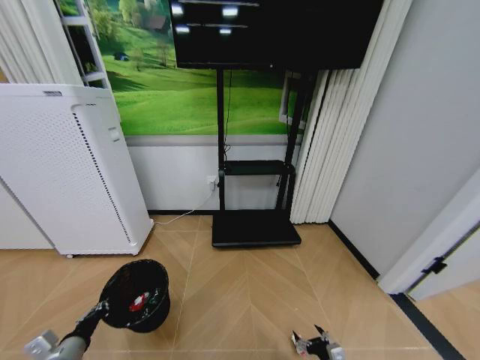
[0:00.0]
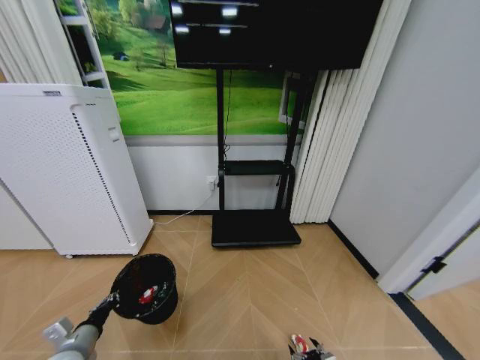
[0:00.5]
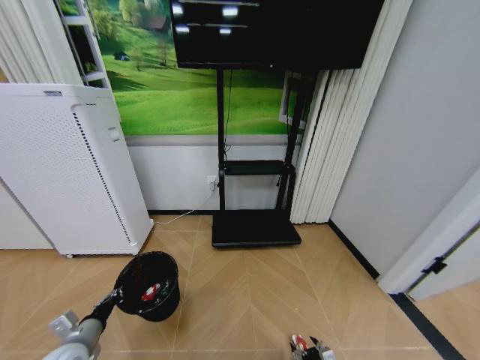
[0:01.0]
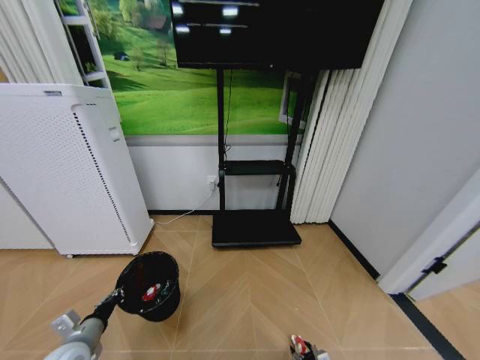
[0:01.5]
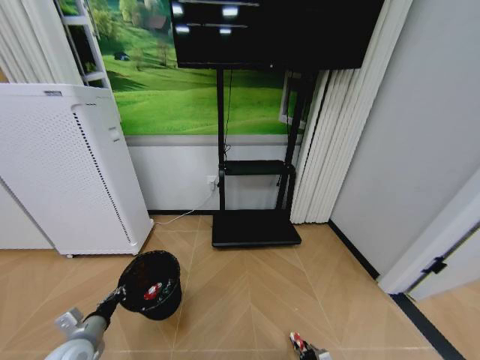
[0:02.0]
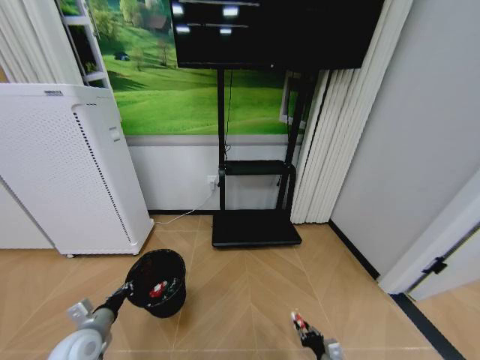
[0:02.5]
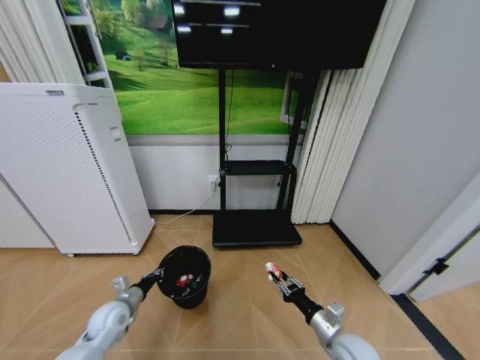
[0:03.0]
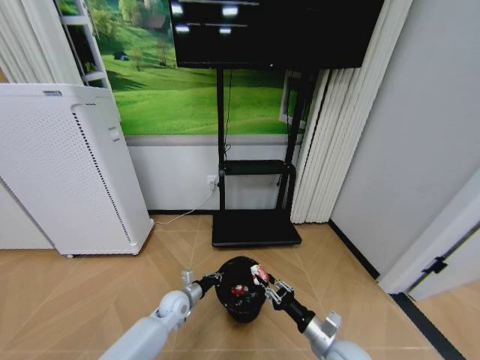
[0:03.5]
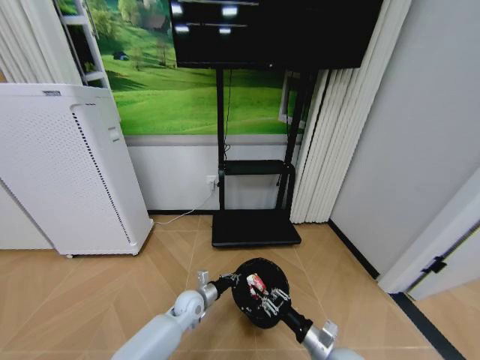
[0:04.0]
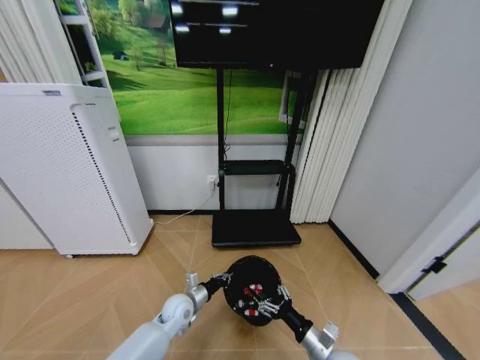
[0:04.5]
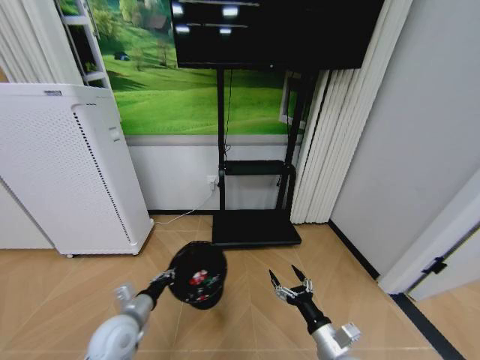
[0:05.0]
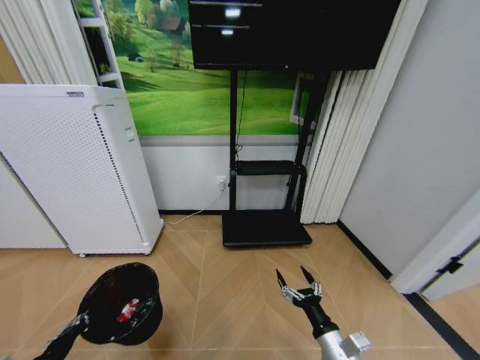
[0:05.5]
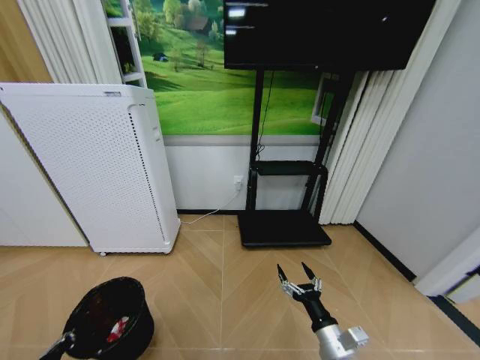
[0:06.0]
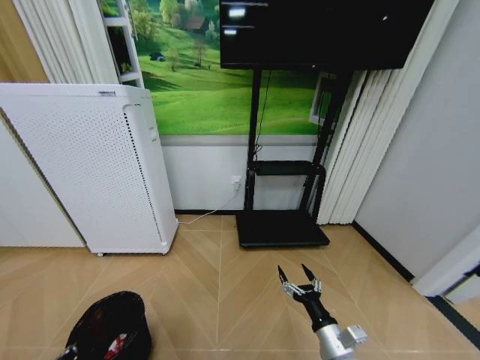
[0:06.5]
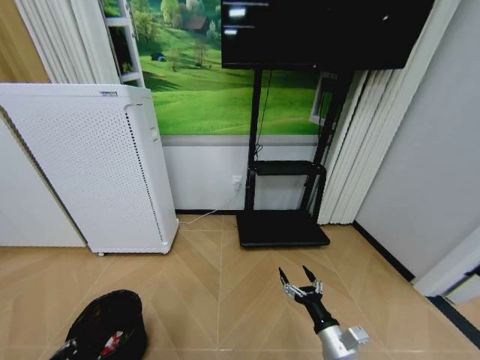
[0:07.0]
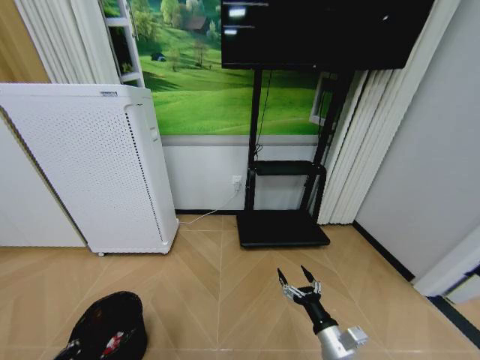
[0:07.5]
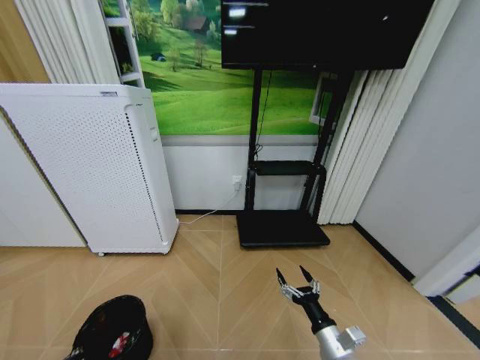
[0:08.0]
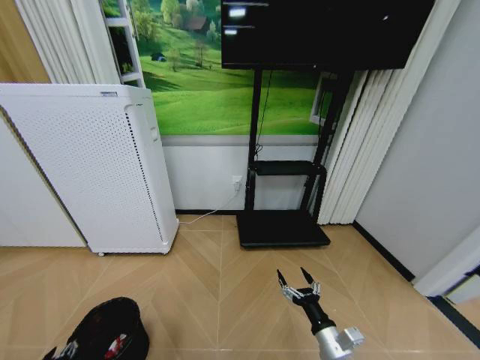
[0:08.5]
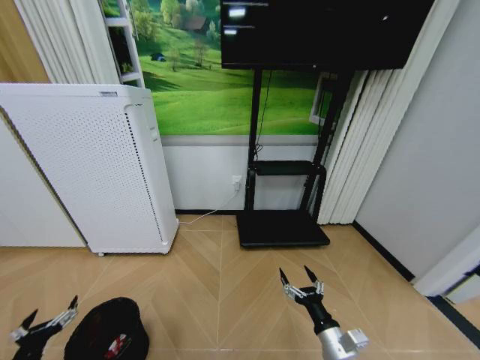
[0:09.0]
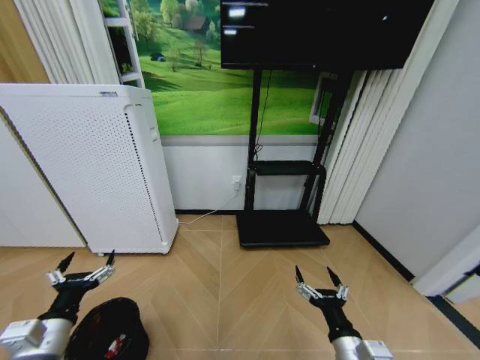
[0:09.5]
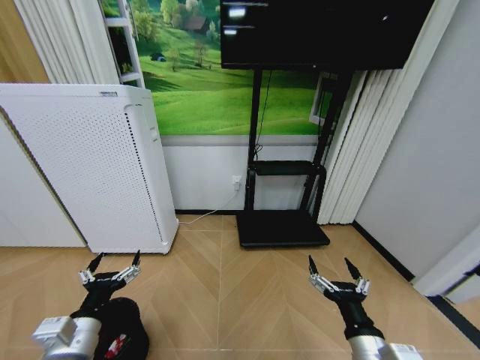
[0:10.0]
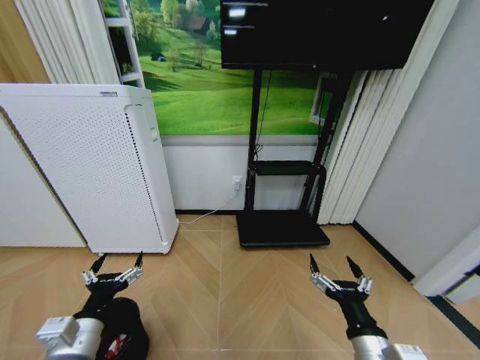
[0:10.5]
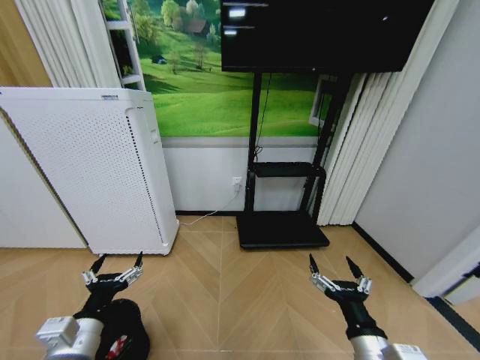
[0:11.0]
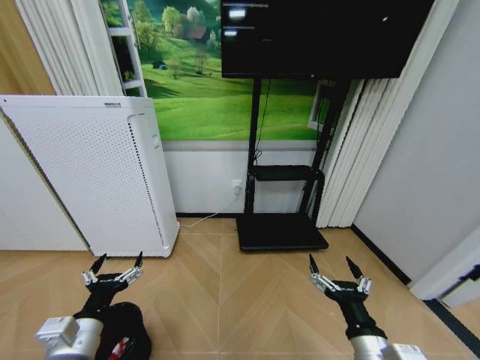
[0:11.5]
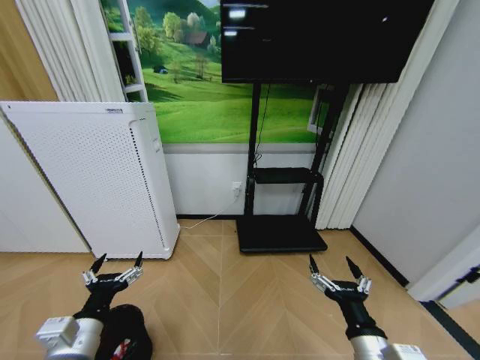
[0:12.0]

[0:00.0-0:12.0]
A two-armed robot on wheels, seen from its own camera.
Task of the whole recording: Pick up the trash bin and place the garbage on the floor into it.
0:00.0 to 0:02.0: The right gripper moves about 5 cm, and closes its fingers. The left gripper shifts by roughly 5 cm.
0:02.0 to 0:04.0: The left gripper goes about 30 cm to the right and forward. The right gripper shifts some 20 cm upward.
0:04.0 to 0:06.0: The left gripper goes some 40 cm to the left and backward; the right gripper shifts by approximately 5 cm, and opens.
0:06.0 to 0:08.0: The left gripper shifts roughly 10 cm downward.
0:08.0 to 0:10.0: The left gripper moves upward and to the right, some 25 cm, and opens, while the right gripper travels upward by about 10 cm.
0:10.0 to 0:12.0: The two grippers keep their place.

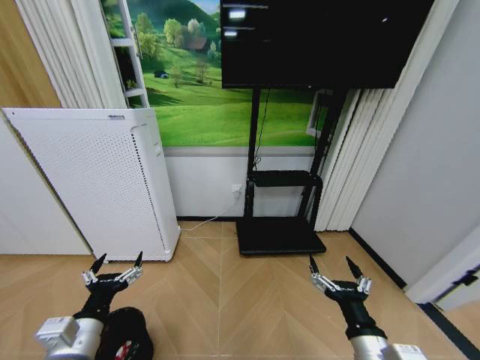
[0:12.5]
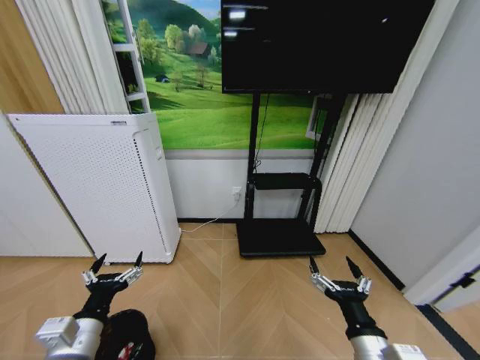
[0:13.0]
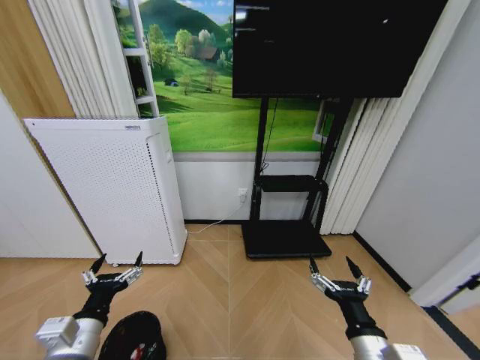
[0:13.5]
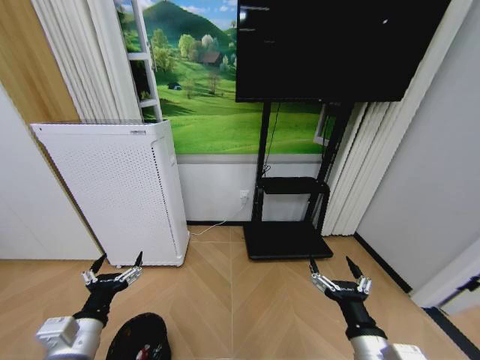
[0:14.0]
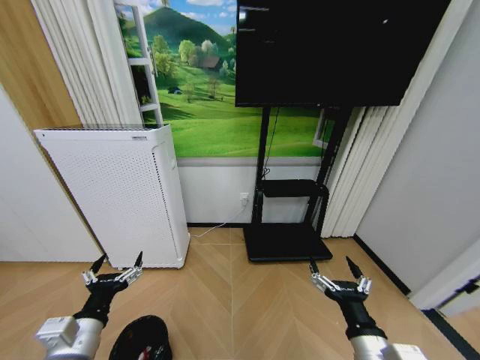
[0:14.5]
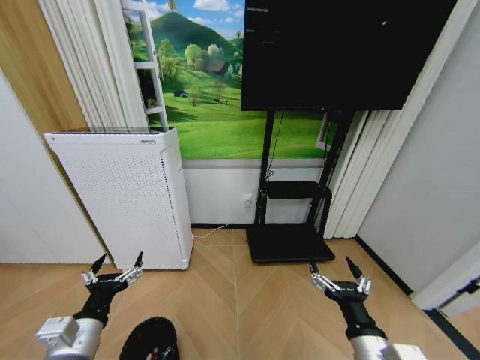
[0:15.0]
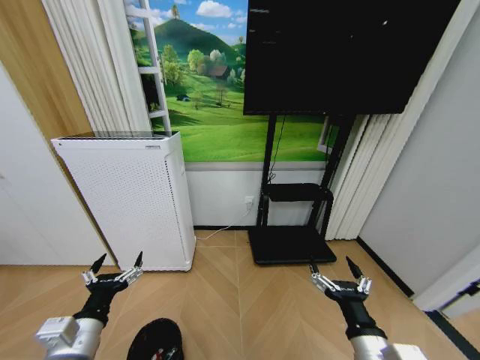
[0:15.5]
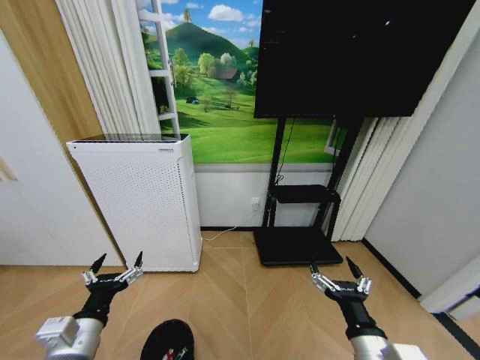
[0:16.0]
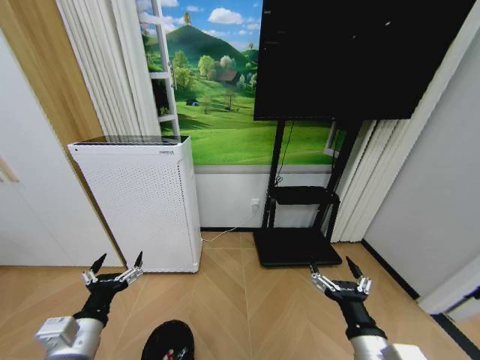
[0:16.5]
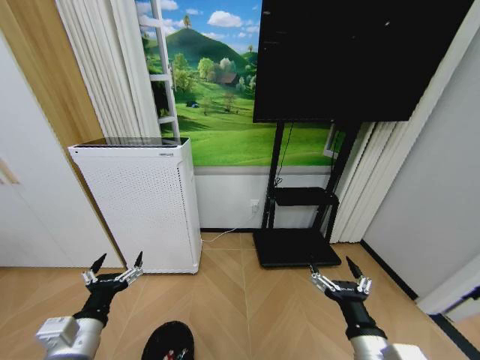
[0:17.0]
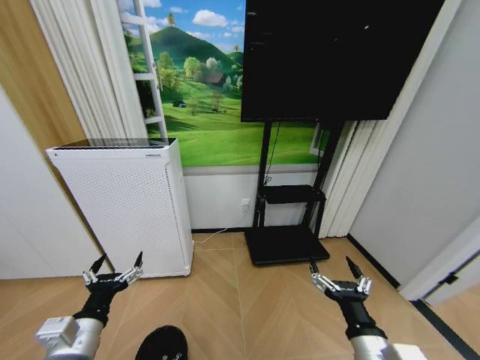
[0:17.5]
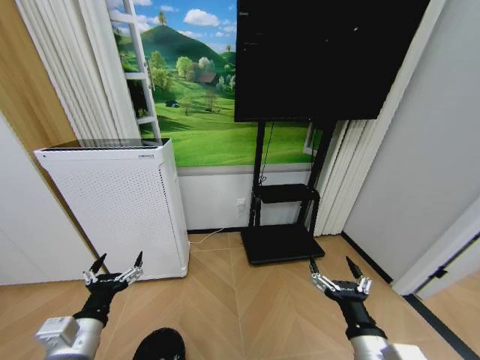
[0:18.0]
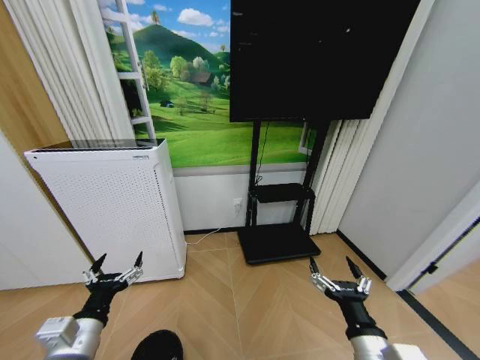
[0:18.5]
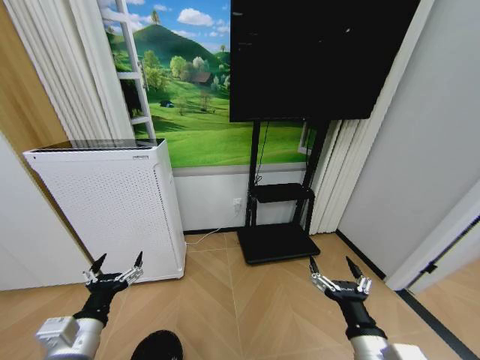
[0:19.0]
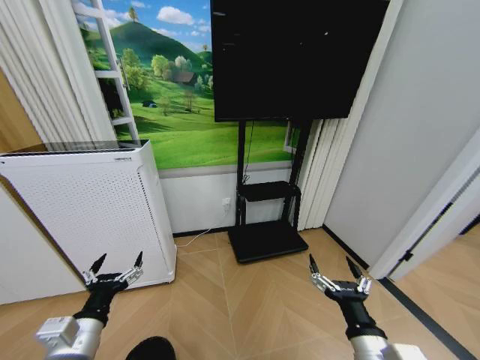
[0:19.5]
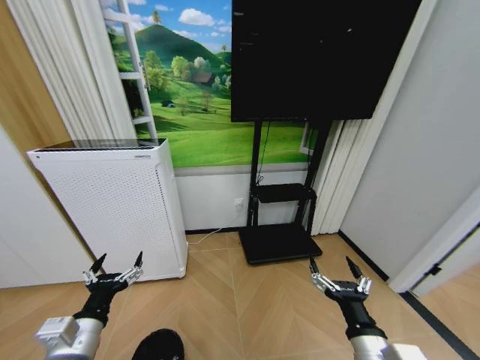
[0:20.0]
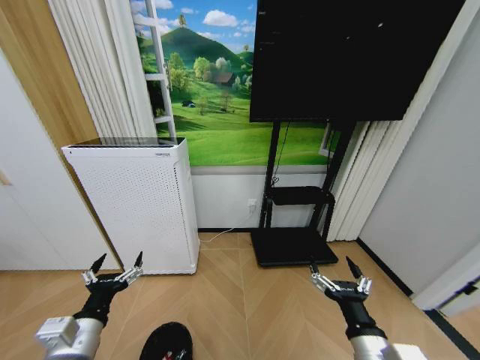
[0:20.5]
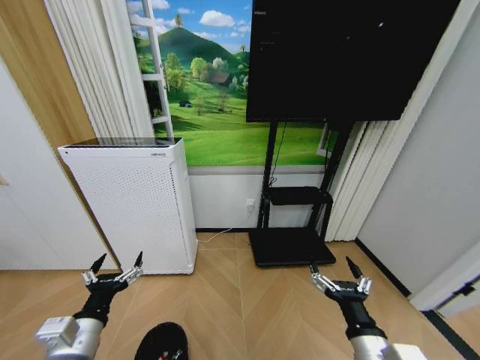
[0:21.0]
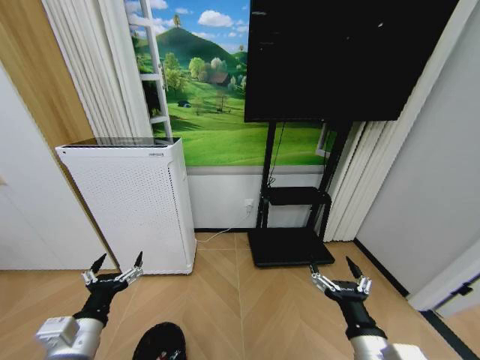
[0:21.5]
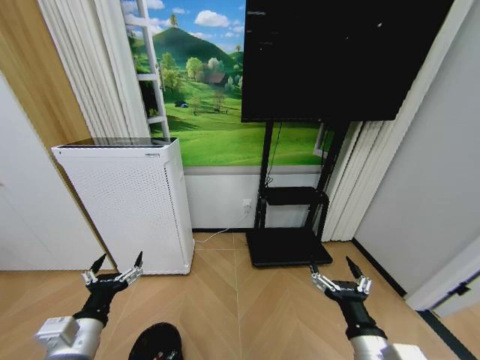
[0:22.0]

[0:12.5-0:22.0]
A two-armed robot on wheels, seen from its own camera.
Task of the whole recording: Pick up the trash bin and place the garbage on the floor into it.
0:18.0 to 0:20.0: Neither gripper changes place.

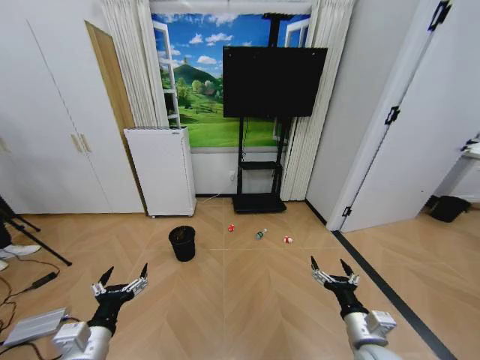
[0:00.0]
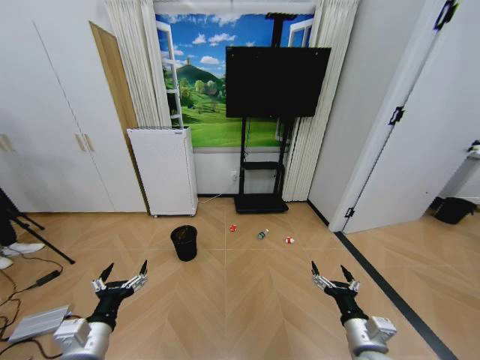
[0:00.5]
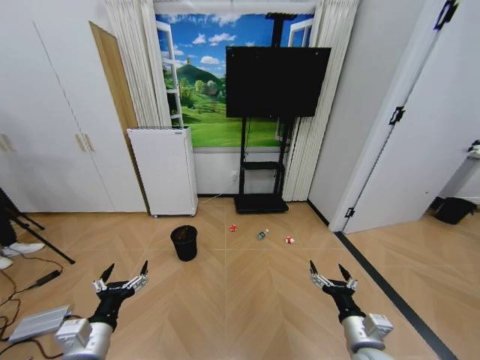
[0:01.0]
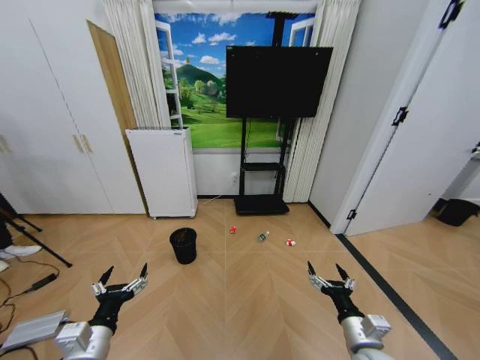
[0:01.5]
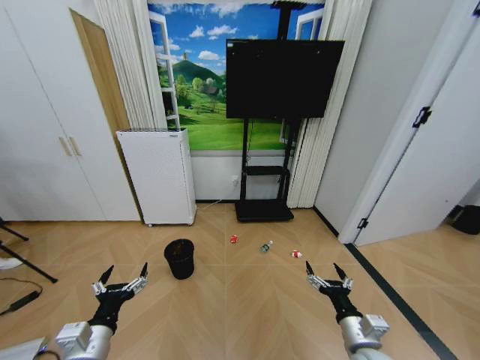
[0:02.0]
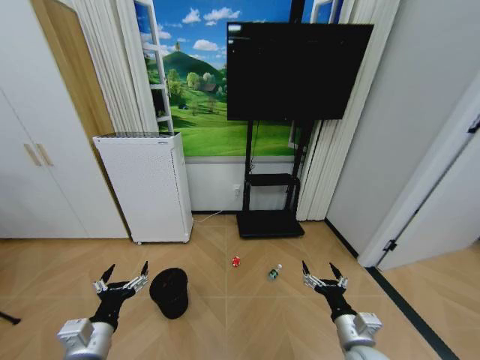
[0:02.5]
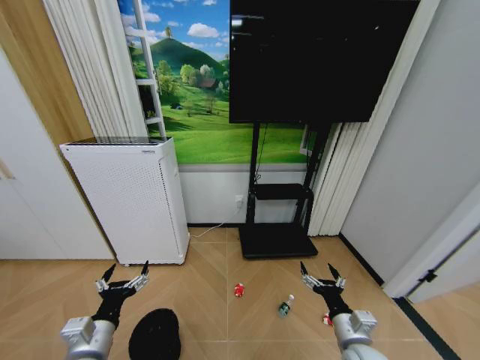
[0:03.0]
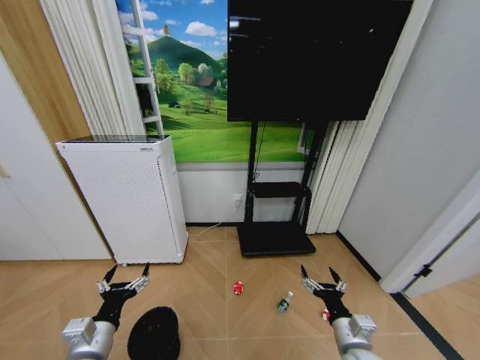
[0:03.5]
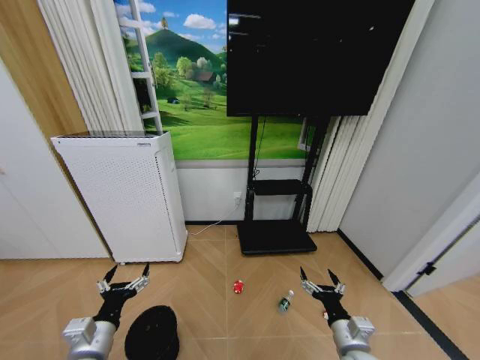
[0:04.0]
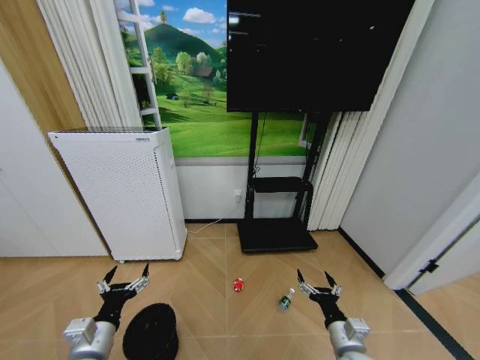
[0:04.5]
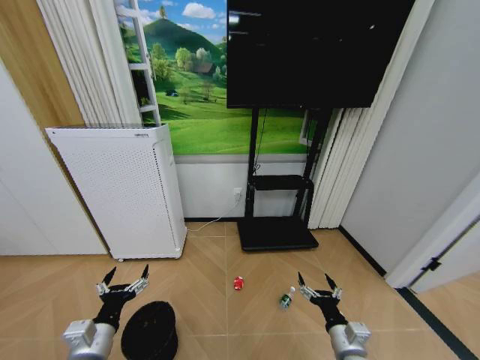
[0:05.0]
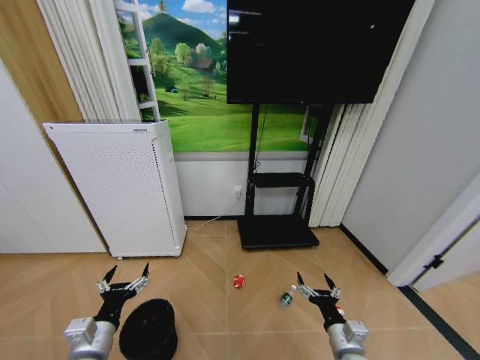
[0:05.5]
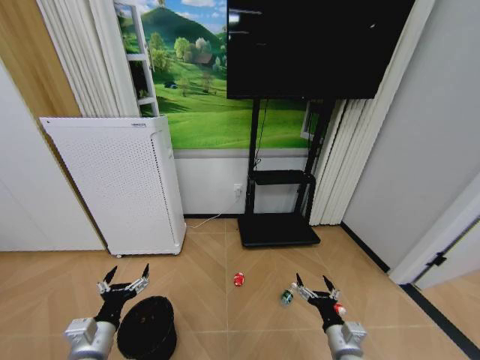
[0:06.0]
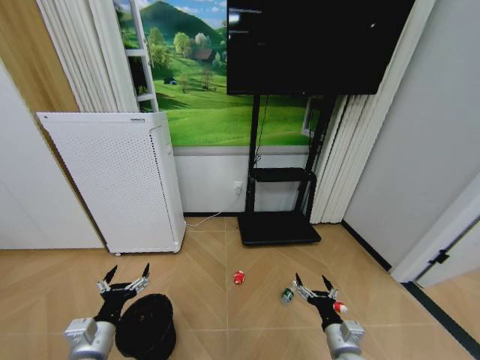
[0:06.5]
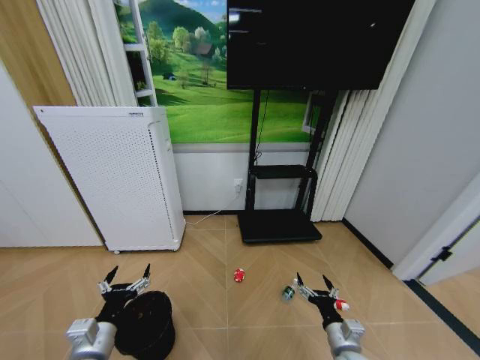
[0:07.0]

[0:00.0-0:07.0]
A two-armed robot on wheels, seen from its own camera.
Task of the whole recording: Pick up the trash bin and place the garbage on the floor into it.
0:03.5 to 0:07.0: The grippers make only small movements.
